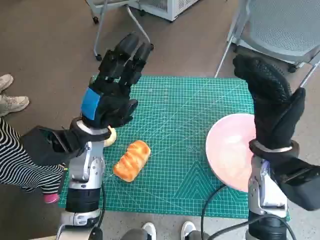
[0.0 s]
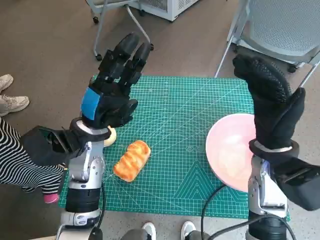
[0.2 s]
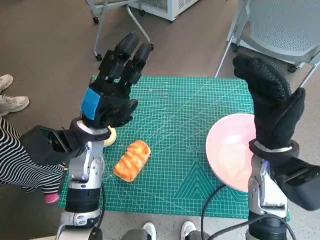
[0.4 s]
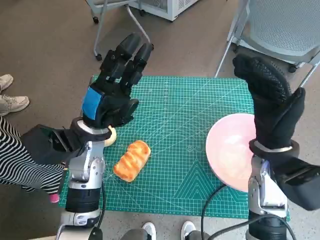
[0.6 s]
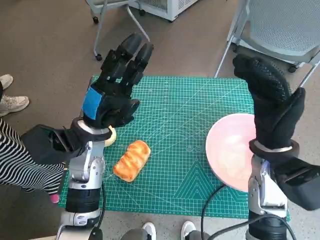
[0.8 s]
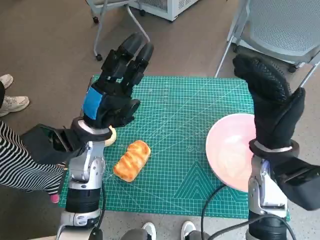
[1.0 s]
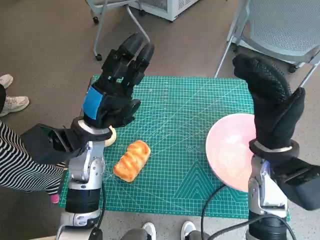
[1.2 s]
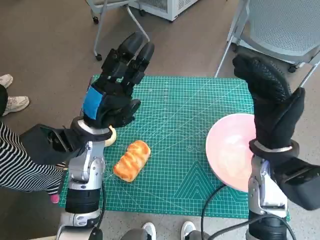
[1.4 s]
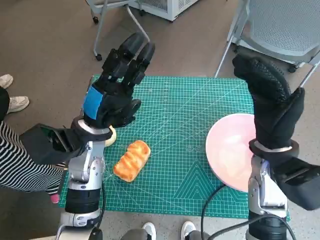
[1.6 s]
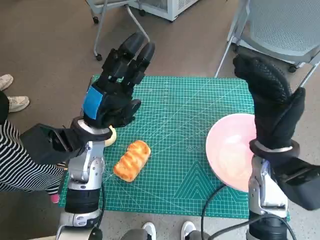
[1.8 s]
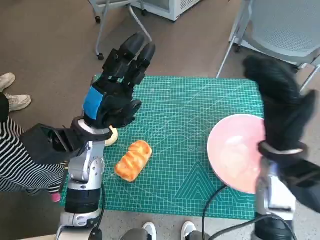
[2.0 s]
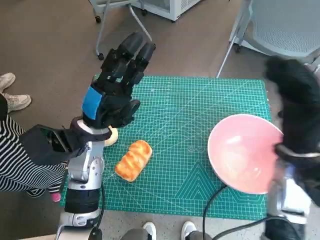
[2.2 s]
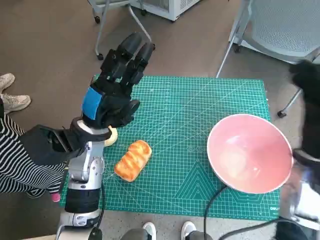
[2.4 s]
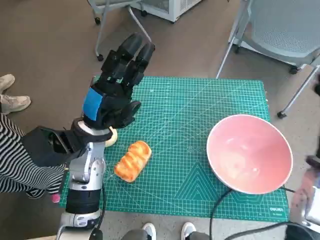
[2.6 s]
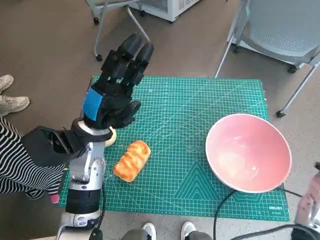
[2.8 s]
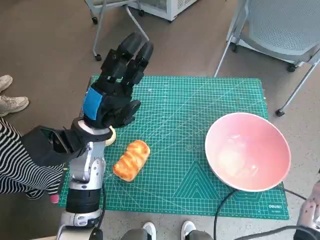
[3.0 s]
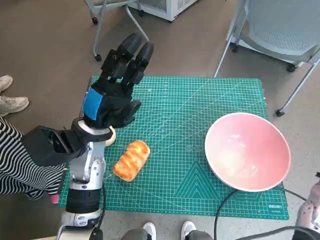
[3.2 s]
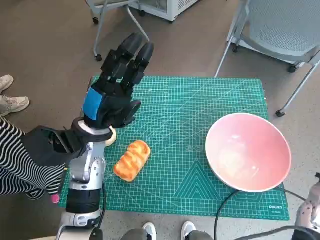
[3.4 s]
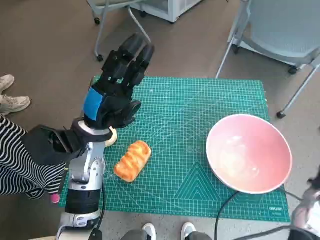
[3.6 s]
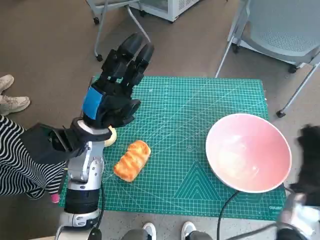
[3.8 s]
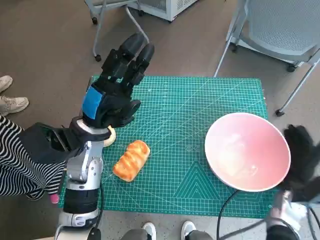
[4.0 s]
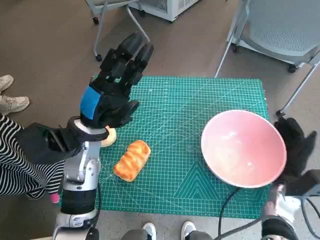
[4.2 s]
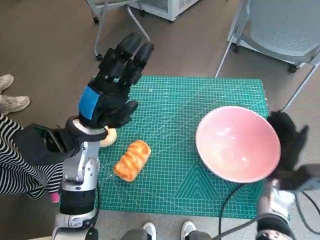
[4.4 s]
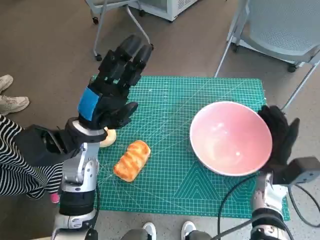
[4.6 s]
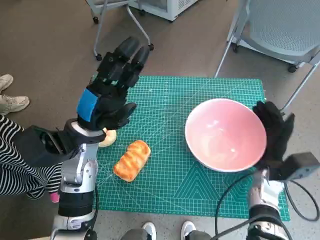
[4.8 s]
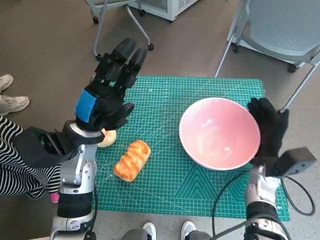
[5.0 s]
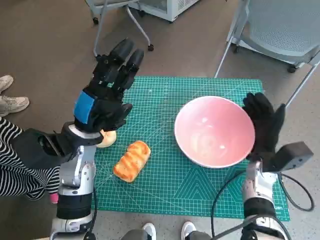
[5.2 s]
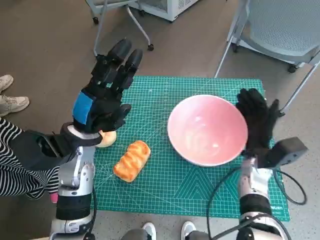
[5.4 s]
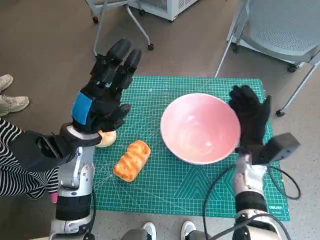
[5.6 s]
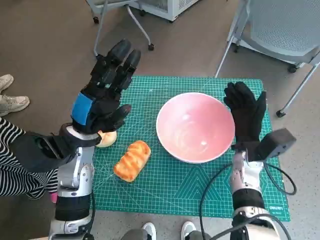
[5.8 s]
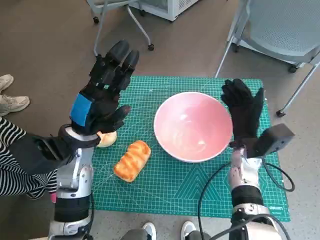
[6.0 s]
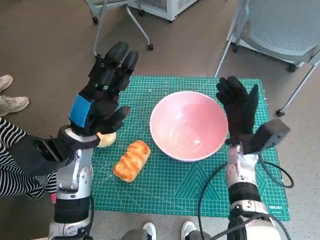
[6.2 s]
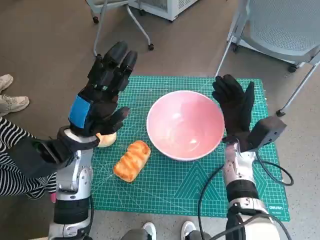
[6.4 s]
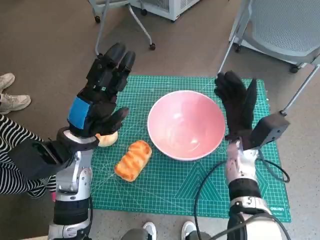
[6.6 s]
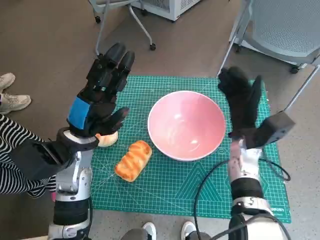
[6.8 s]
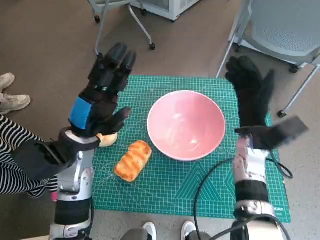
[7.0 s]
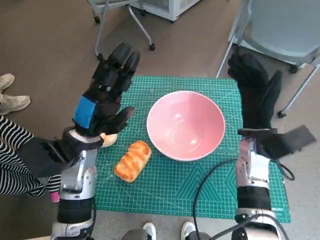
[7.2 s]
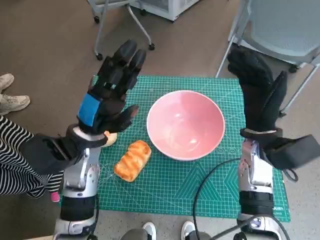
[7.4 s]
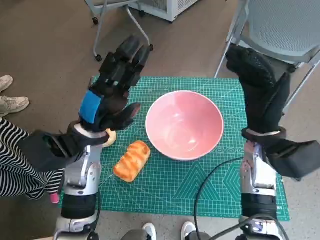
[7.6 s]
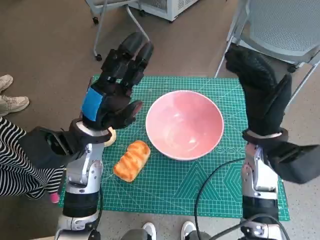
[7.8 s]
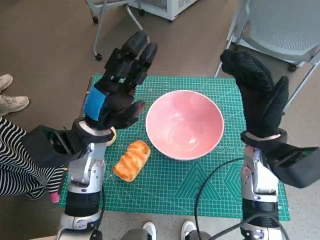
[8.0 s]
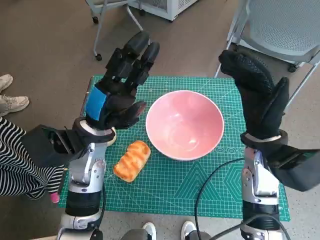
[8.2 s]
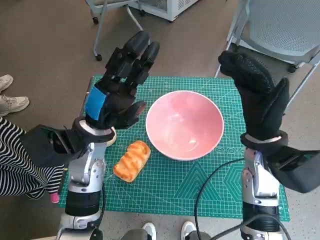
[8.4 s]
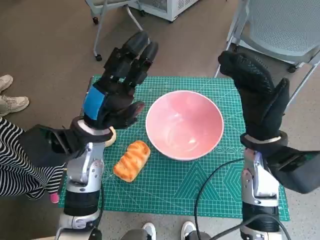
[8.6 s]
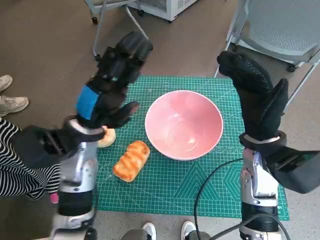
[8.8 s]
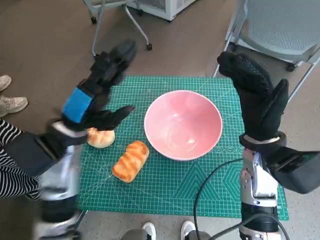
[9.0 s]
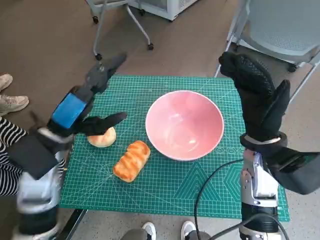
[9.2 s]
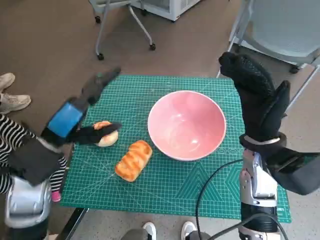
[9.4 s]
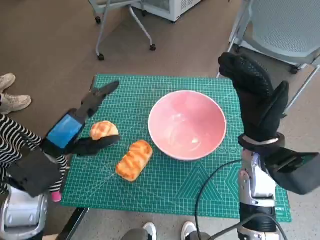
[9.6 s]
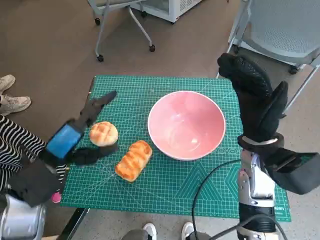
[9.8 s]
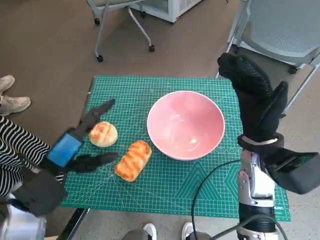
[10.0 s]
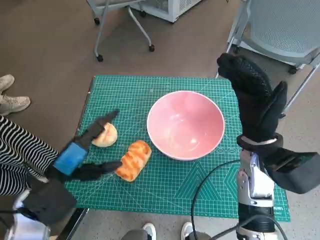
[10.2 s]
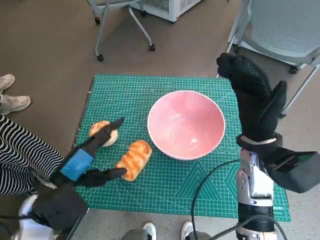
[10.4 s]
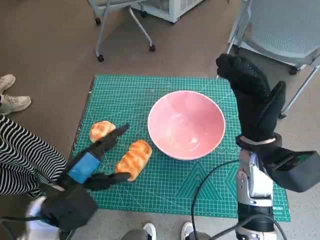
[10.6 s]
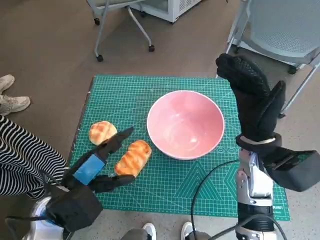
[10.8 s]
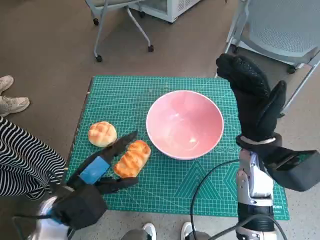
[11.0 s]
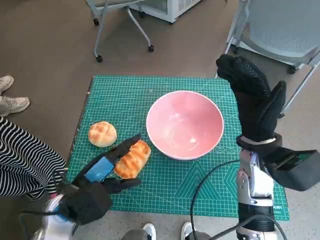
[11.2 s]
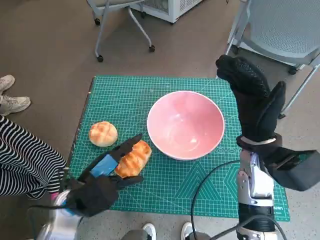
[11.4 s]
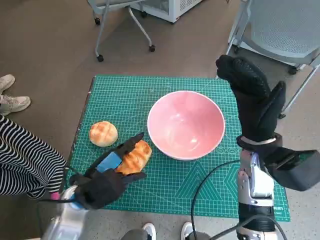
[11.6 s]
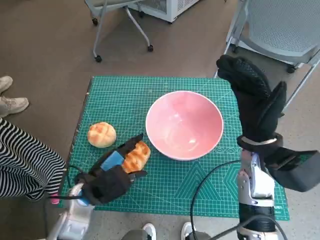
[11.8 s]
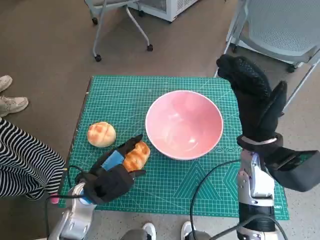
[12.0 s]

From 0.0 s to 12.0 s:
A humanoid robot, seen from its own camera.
Task of the whole recording: Push the bowl into the center of the table and put the bread into the bowl.
Step, from 0.0 s to 6.6 s: Move the pink bowl to the center of table with right hand.
From 1.6 s to 3.0 s: The right hand heads to the right and downward, covering about 15 cm.
From 3.0 s to 4.4 s: The right hand moves downward and to the left, about 10 cm.
From 4.4 s to 6.0 s: The right hand travels to the left and forward by approximately 10 cm.
From 6.0 s to 7.6 s: The right hand shifts approximately 10 cm upward.
From 9.0 s to 10.4 s: The left hand is displaced backward by some 10 cm.
From 10.4 s to 12.0 s: The left hand shifts roughly 5 cm downward.

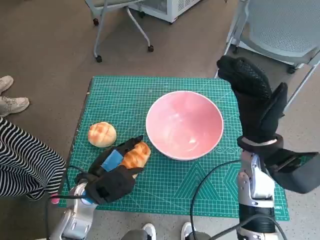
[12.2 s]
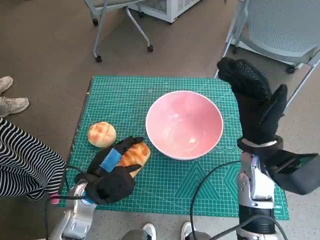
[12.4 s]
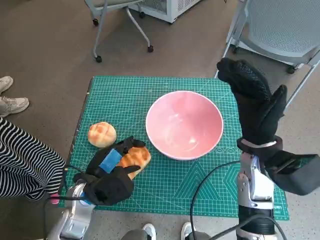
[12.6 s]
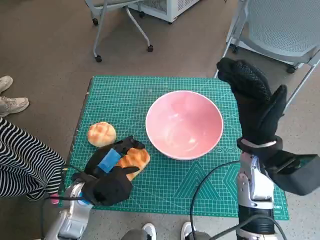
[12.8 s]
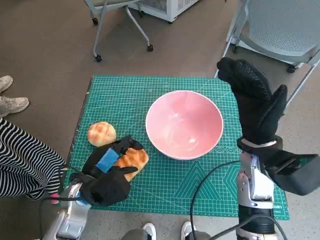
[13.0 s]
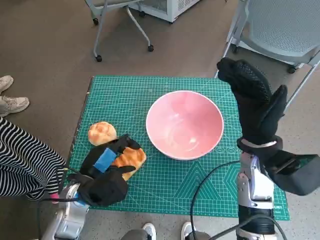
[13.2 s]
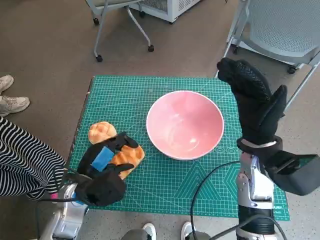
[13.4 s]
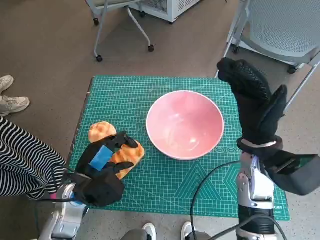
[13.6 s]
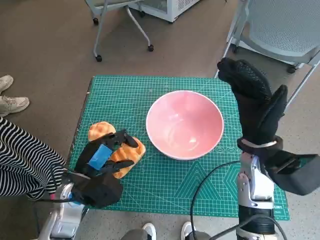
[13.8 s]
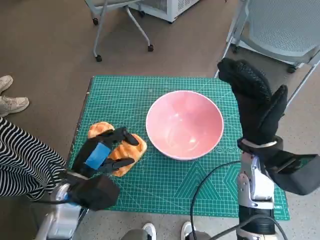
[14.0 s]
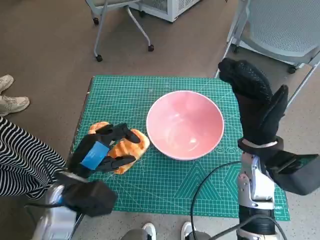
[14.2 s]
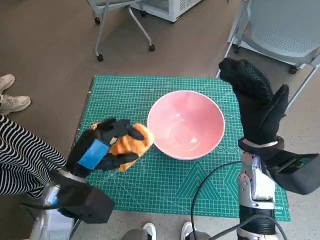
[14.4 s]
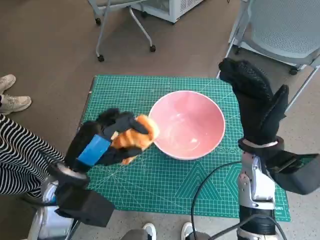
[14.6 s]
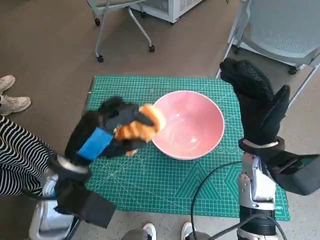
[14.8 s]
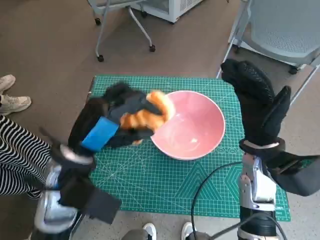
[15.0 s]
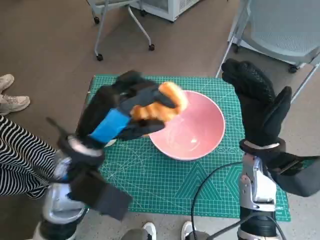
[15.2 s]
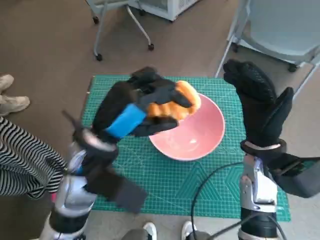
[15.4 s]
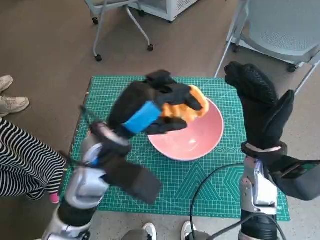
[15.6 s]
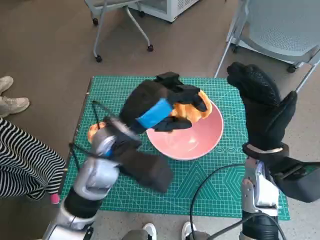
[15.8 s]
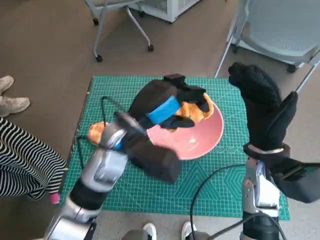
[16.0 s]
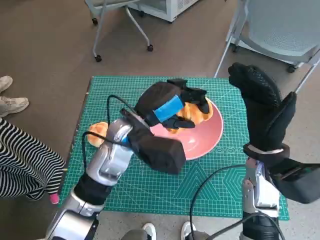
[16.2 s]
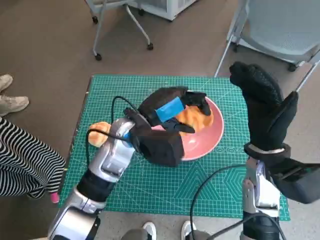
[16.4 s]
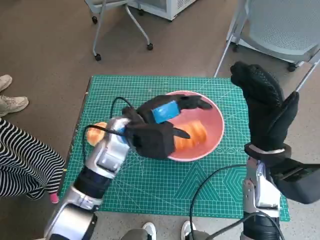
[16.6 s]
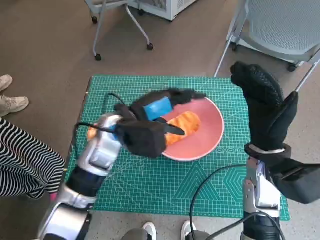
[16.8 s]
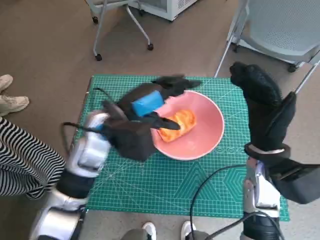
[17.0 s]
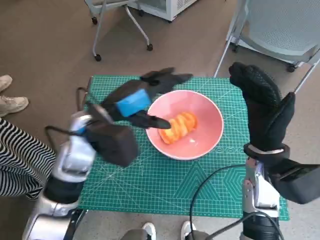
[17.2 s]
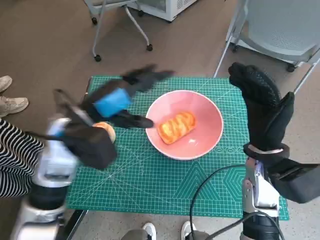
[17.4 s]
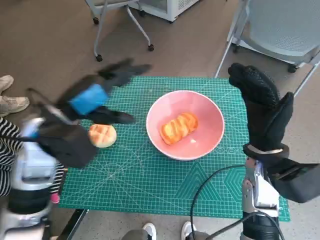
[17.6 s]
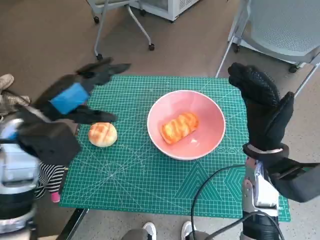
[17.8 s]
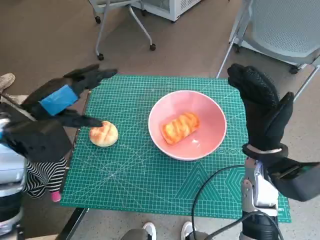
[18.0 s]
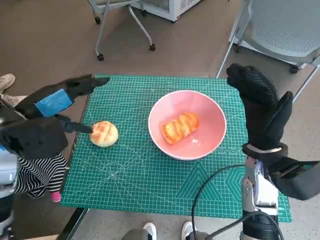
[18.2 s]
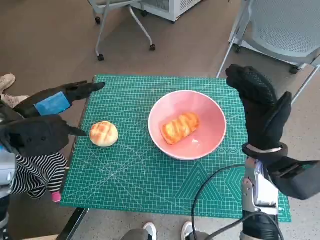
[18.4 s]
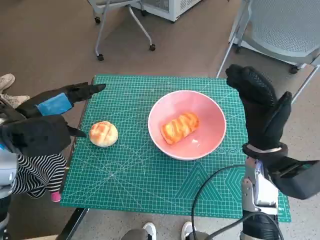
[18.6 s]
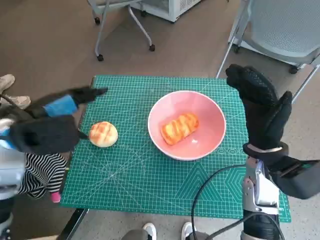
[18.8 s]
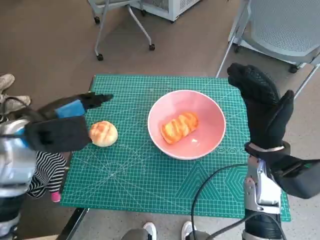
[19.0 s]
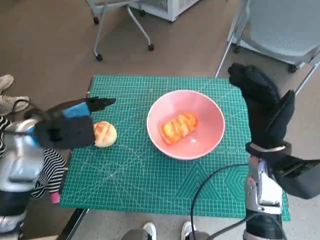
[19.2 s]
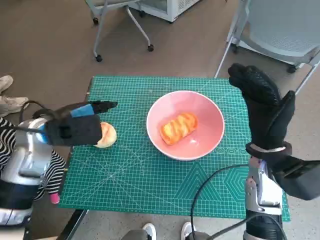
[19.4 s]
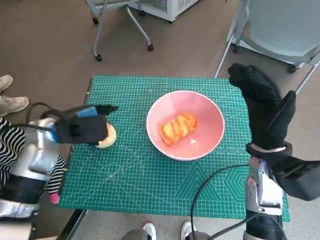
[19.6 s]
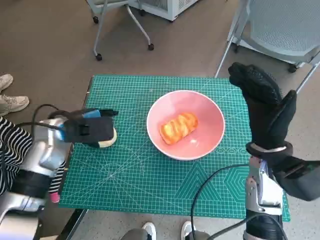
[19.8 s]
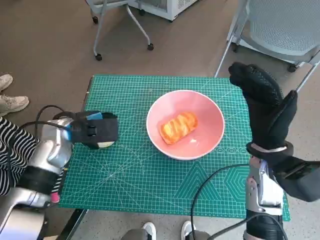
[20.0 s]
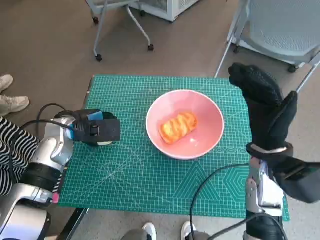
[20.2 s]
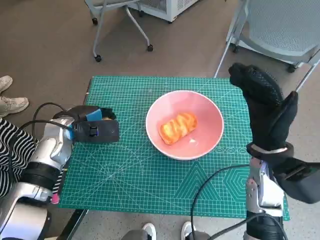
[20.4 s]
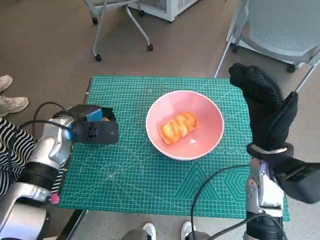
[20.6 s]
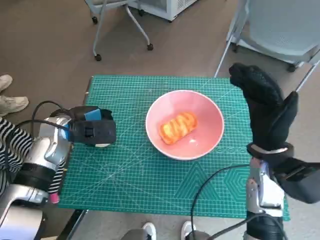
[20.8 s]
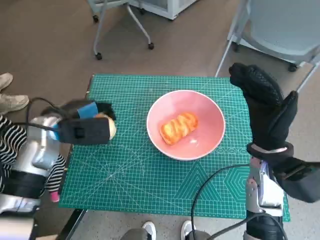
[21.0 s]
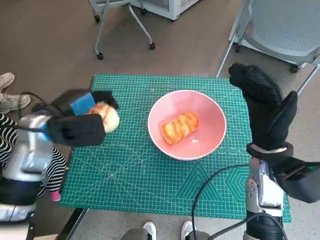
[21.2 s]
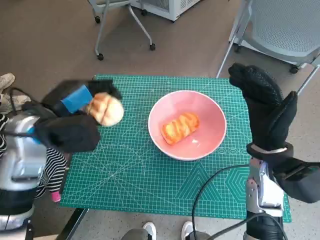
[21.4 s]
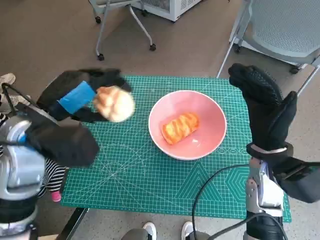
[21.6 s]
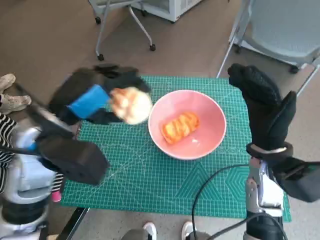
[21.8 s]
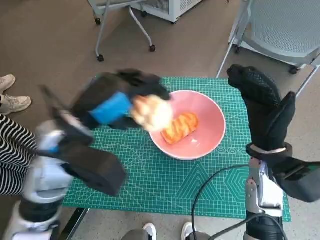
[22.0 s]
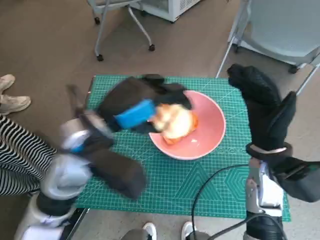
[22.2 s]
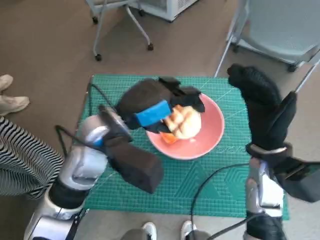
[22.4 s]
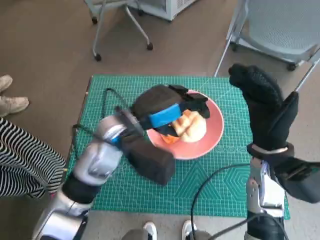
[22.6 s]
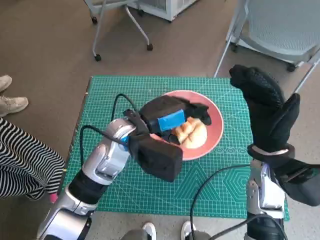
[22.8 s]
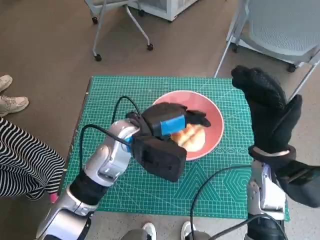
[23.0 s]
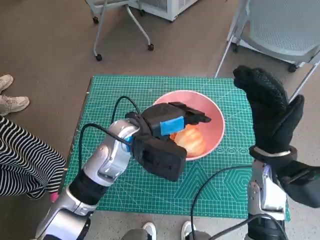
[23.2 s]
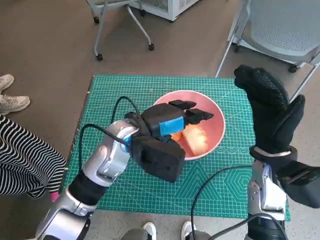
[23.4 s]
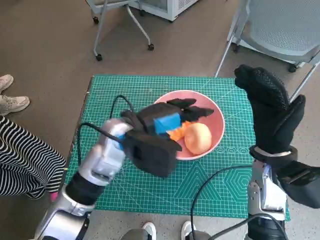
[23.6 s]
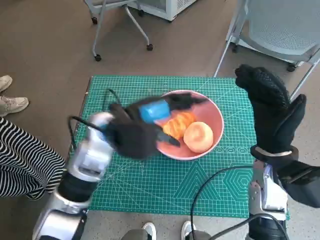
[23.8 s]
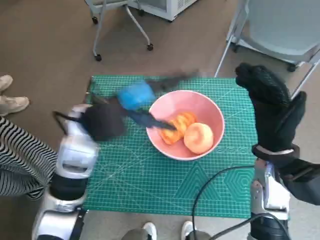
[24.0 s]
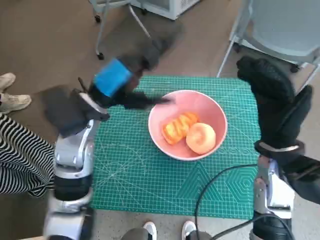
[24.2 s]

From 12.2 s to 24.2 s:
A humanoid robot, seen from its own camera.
Task of the whole recording: Push the bowl into the center of the table and put the bread into the bowl.
Step, from 12.8 s to 16.8 s: Place the long bread in pink bowl with left hand.
Step, from 17.2 s to 20.2 s: Grasp the round bread with left hand.
Step, from 20.4 s to 23.6 s: Place the round bread in pink bowl with left hand.
From 12.2 s to 13.8 s: The hands move only a little.
From 13.8 s to 15.2 s: The left hand is displaced upward by roughly 10 cm.
From 15.2 s to 16.6 s: The left hand goes approximately 10 cm forward and to the right.
From 16.6 s to 18.2 s: The left hand shifts roughly 20 cm to the left and upward.
From 18.2 s to 19.8 s: The left hand moves downward and forward, approximately 10 cm.
From 19.8 s to 21.2 s: The hands make only small movements.
From 21.2 s to 22.6 s: The left hand moves to the right, about 15 cm.
From 22.6 s to 24.2 s: The left hand moves roughly 5 cm.
